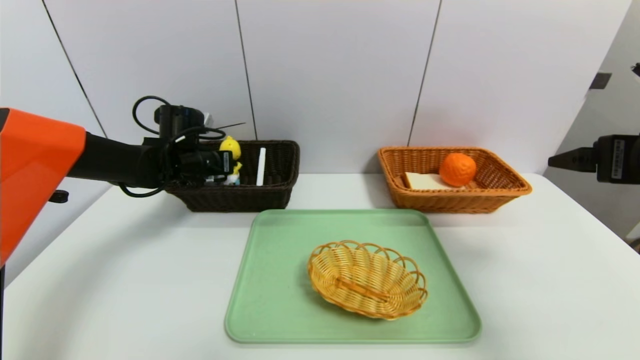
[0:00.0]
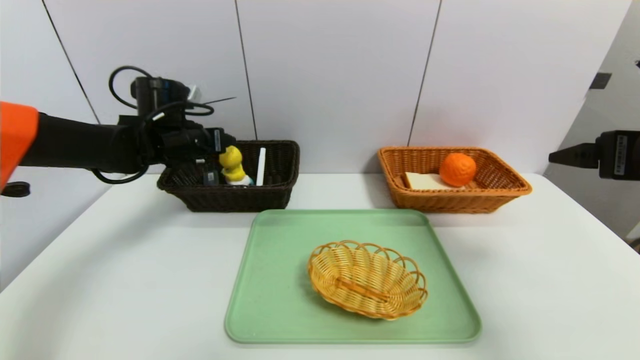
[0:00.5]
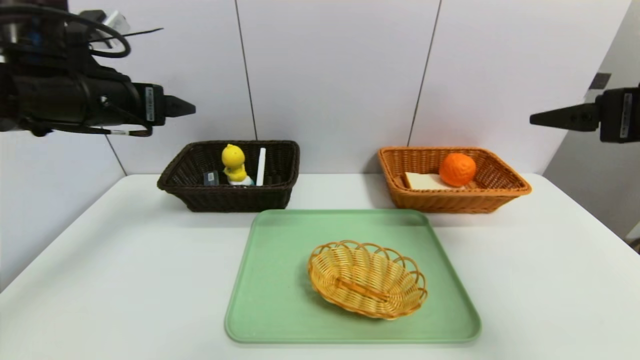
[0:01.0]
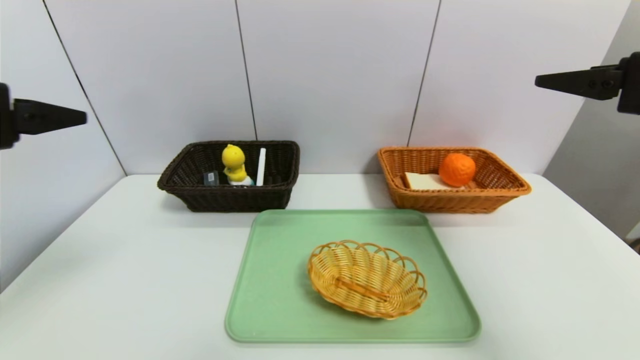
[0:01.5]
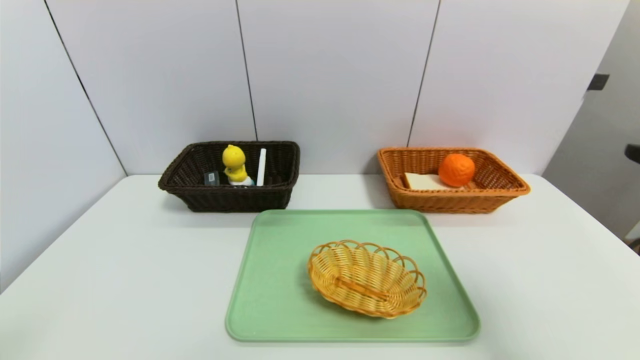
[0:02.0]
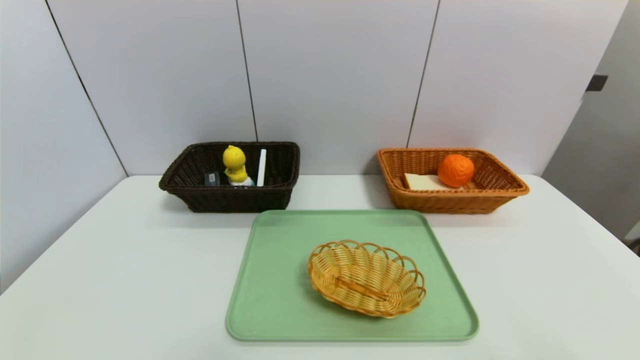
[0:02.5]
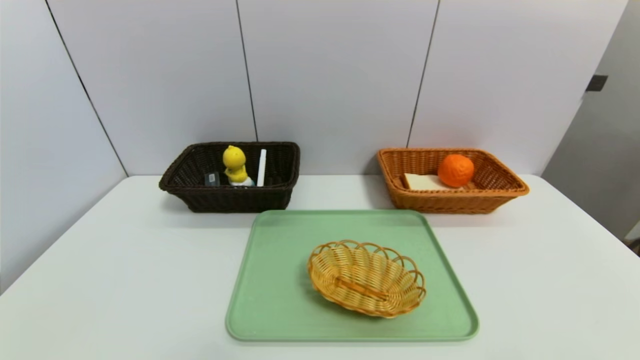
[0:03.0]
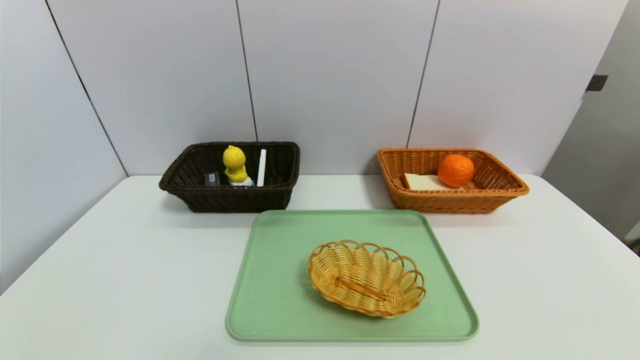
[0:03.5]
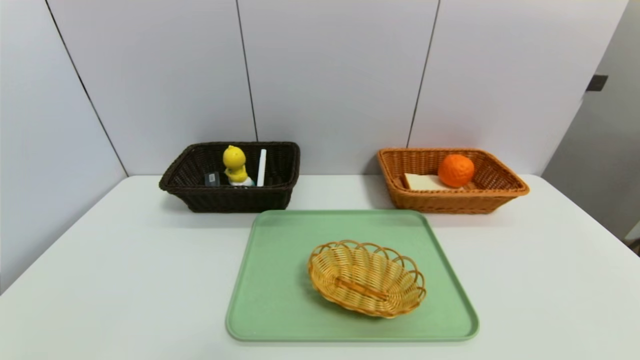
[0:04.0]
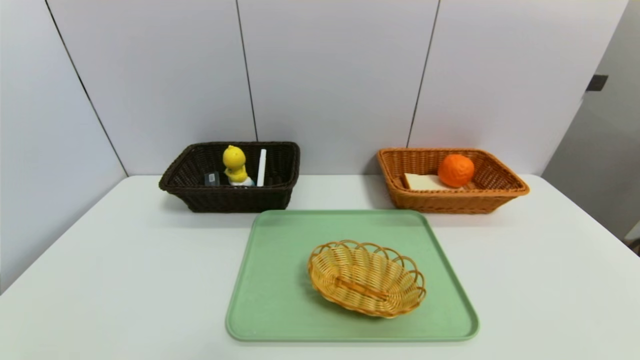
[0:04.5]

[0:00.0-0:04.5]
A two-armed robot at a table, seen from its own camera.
Task of the whole recording: place the food in the right basket with the right gripper, and place the non food items in the left basket with the left gripper.
0:00.0 to 0:02.0: The left gripper moves backward, some 40 cm, and opens its fingers; the right gripper moves backward, about 10 cm.
0:02.0 to 0:04.5: The right gripper moves downward and backward, about 25 cm.
